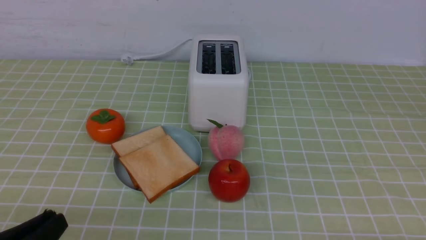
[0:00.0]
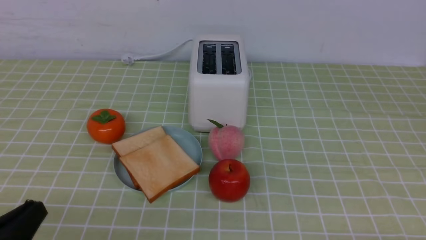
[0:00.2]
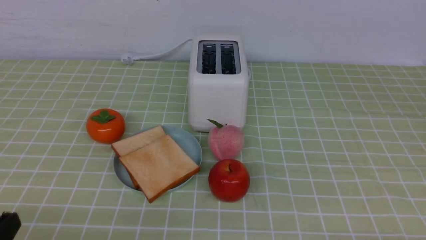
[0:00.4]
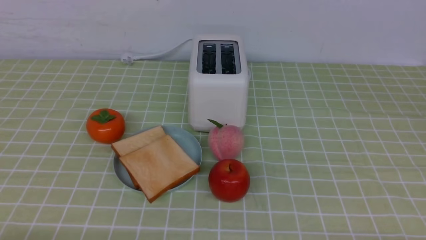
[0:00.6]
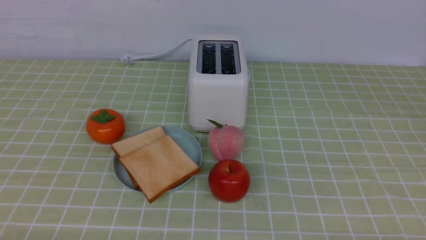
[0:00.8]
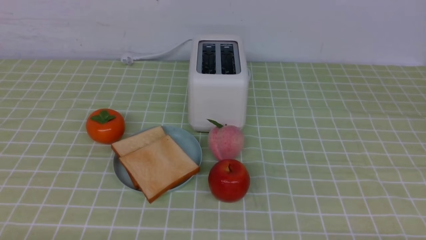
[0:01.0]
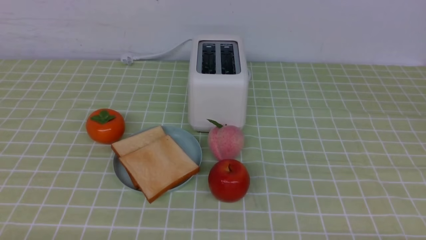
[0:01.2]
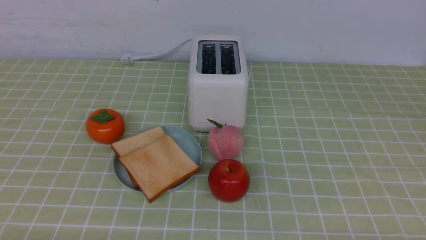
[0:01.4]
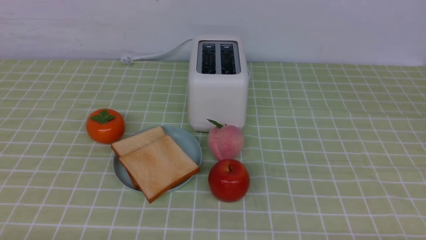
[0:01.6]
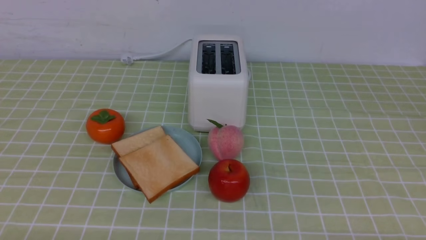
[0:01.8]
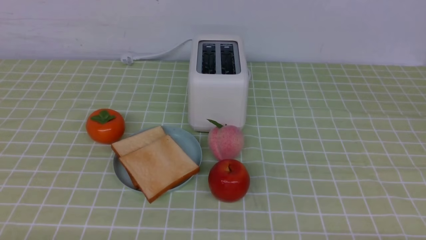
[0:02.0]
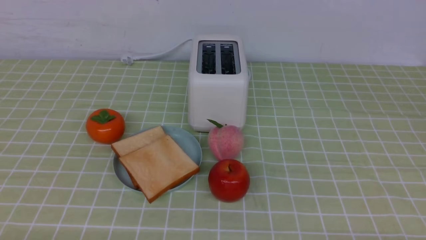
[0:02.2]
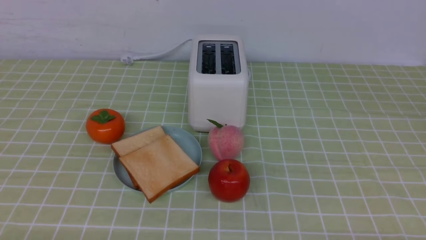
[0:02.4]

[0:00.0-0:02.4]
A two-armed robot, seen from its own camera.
Task of the whole recording: take toasted bread from bread machine on green coffee tablecloth place on plate.
0:00.0 to 0:01.2: The left gripper heads downward, covering approximately 5 cm.
0:01.2 to 0:02.4: Both grippers stay put.
